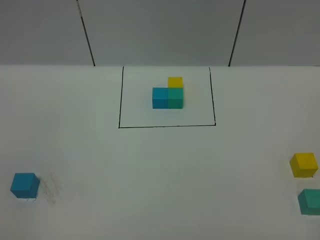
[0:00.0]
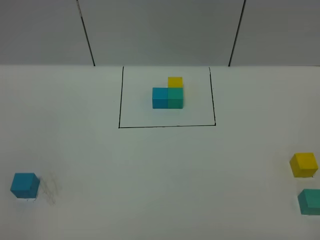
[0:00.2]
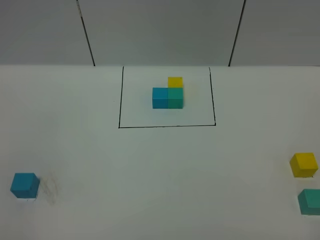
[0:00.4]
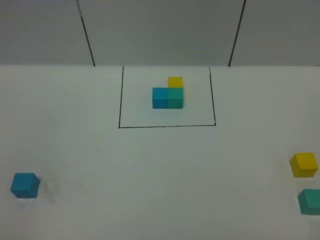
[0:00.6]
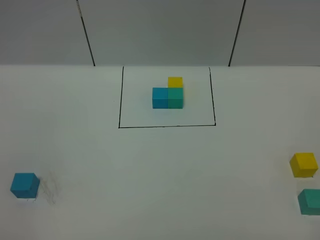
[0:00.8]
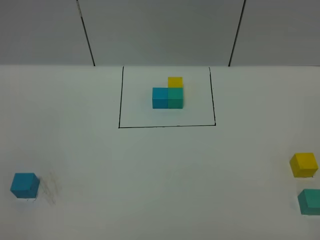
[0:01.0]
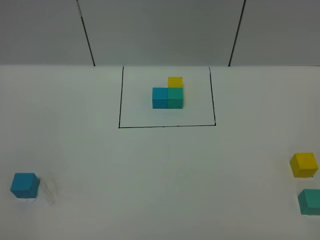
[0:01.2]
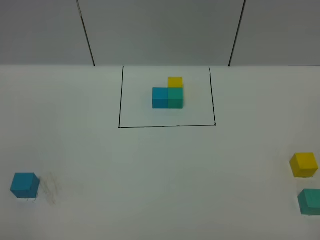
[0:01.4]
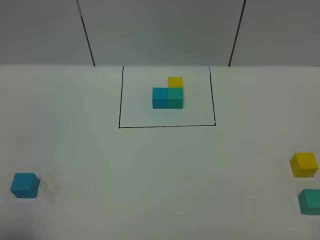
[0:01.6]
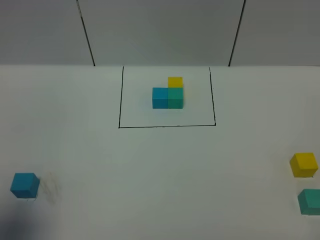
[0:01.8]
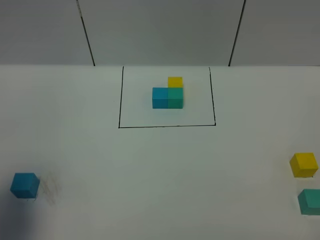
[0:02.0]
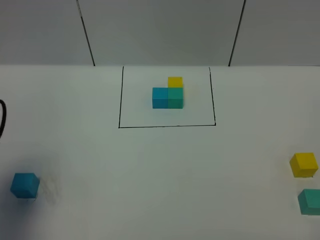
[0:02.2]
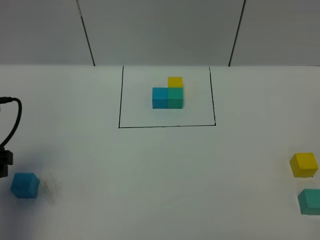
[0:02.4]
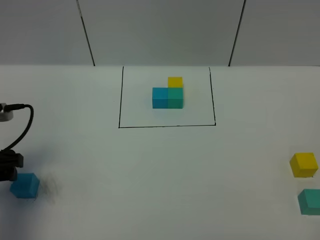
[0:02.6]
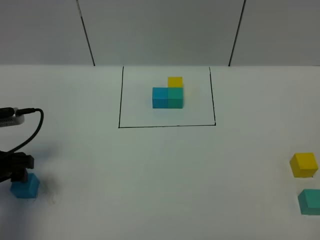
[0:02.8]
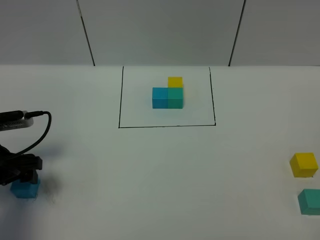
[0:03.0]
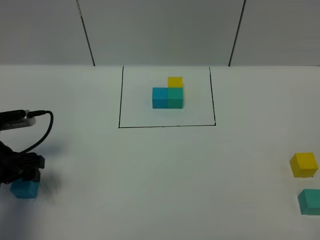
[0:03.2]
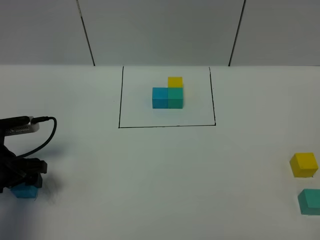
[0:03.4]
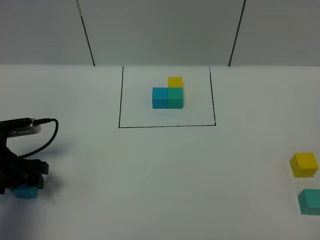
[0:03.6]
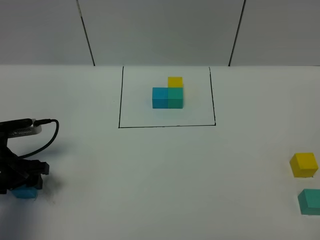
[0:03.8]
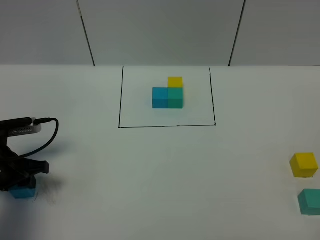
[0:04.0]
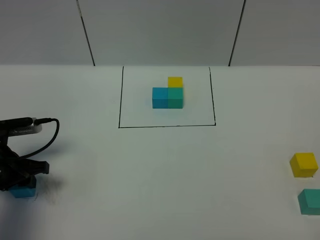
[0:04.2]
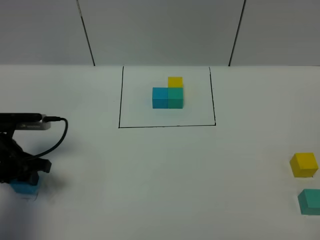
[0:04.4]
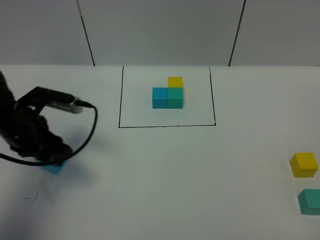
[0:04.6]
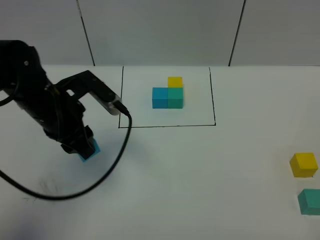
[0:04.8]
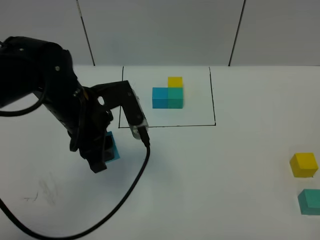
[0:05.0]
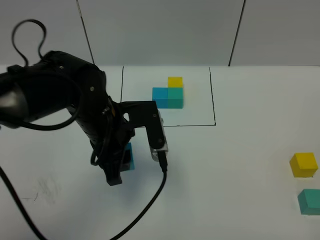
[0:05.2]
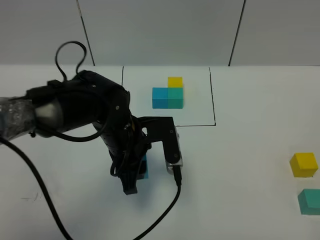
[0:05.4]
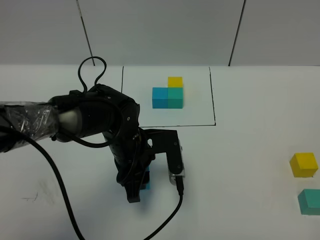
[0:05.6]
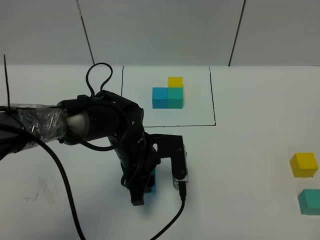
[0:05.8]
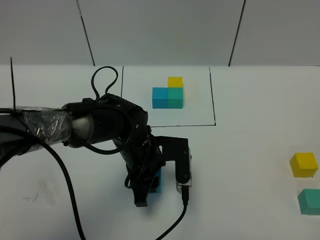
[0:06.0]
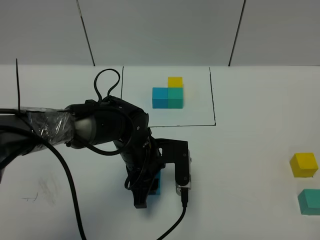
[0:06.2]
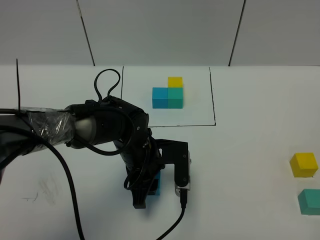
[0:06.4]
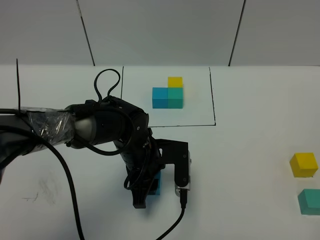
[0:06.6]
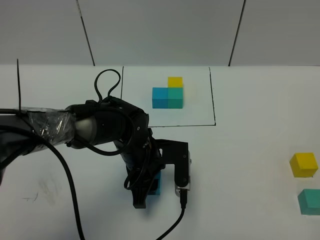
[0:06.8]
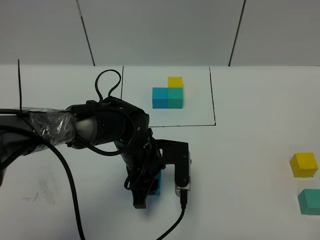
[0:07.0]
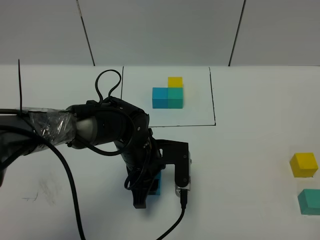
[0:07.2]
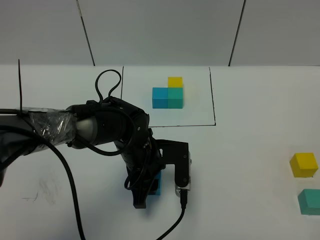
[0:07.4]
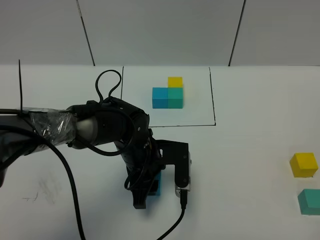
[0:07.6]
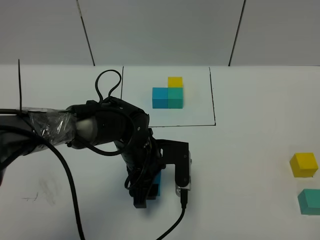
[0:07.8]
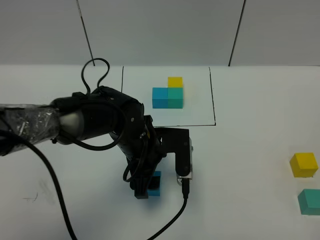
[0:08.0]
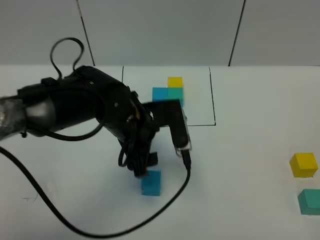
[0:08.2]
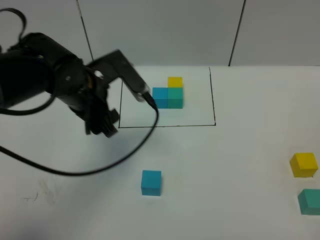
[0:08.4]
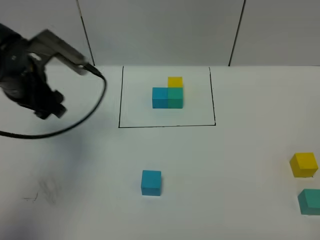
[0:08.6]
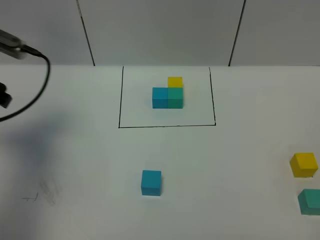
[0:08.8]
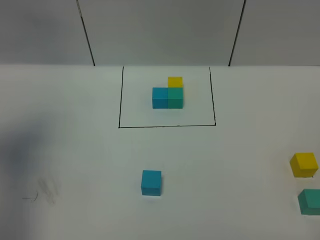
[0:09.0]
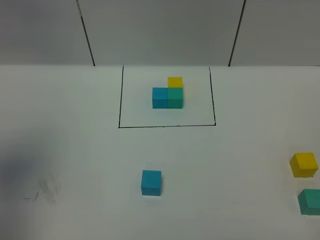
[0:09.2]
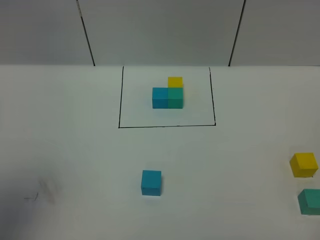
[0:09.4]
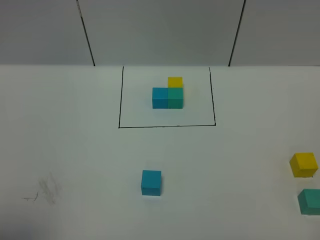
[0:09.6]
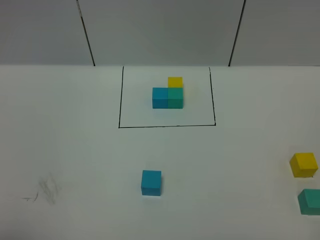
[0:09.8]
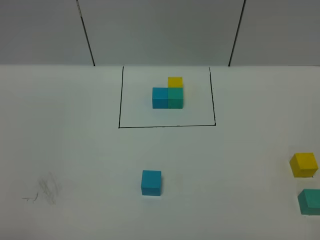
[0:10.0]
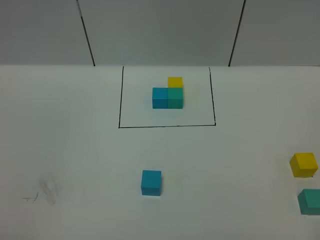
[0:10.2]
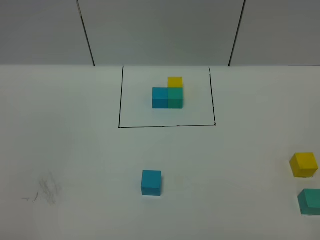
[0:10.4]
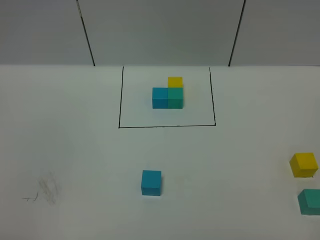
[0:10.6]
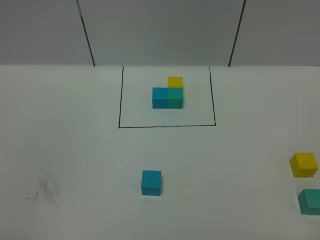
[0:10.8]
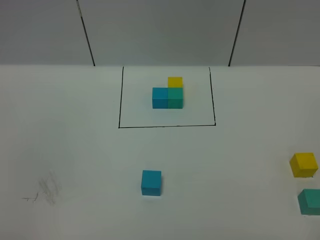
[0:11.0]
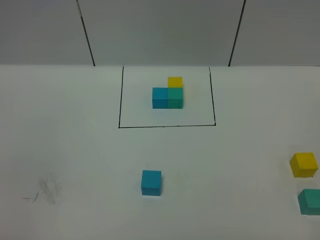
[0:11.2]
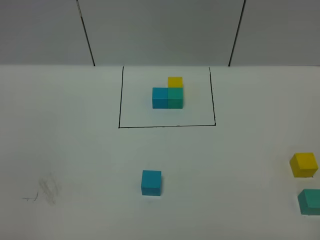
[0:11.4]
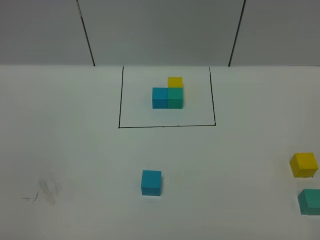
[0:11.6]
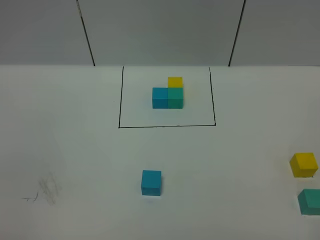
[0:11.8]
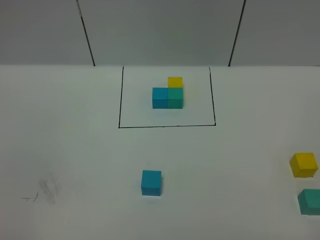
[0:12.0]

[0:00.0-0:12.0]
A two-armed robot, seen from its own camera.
Task of the whole recording: According to the building block template in front, assemble the scattered blocks together.
Step, 0:02.2 to 0:07.8: Put the blue cube in the center of the table.
0:01.6 to 0:03.0: The left gripper travels forward and downward by about 25 cm.
0:03.0 to 0:04.4: The left gripper closes.
0:04.4 to 0:06.0: The left gripper shifts about 25 cm to the right.
0:06.0 to 0:07.6: Both grippers stay about where they are.
0:07.6 to 0:09.0: The left gripper goes roughly 40 cm to the left and upward, and opens.
0:09.0 to 0:10.4: The left gripper shifts about 30 cm backward.

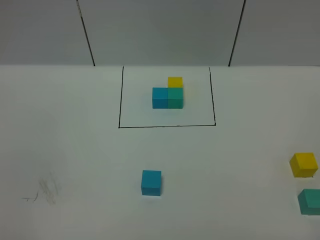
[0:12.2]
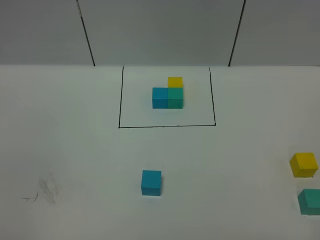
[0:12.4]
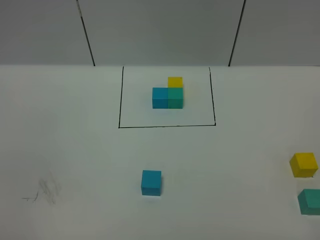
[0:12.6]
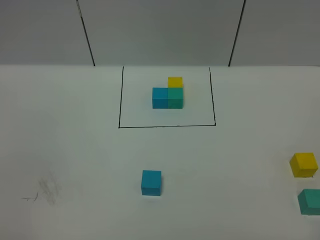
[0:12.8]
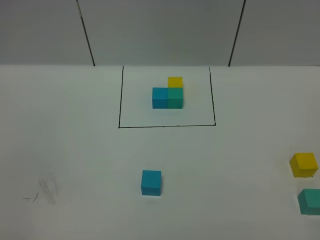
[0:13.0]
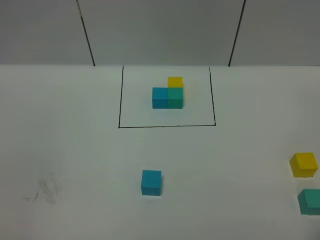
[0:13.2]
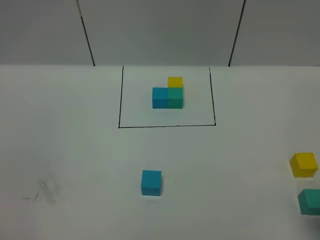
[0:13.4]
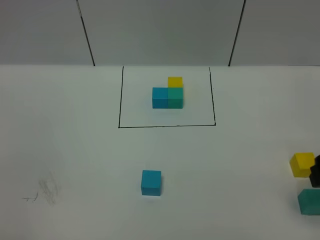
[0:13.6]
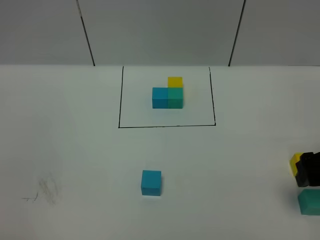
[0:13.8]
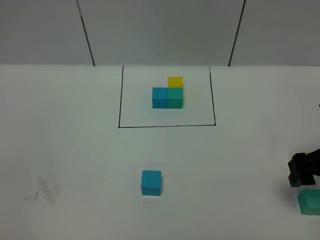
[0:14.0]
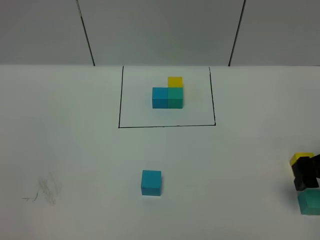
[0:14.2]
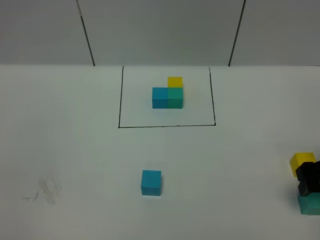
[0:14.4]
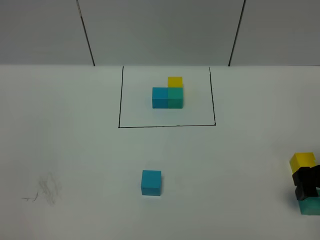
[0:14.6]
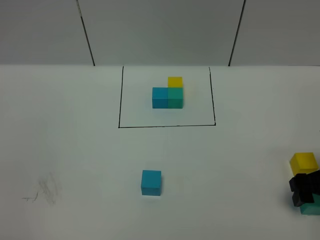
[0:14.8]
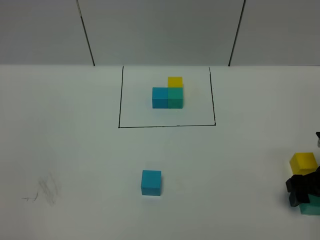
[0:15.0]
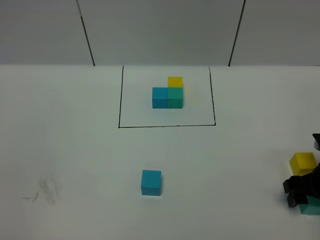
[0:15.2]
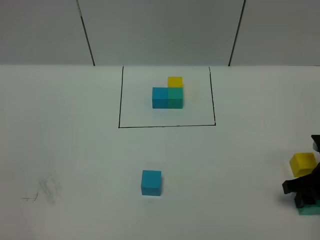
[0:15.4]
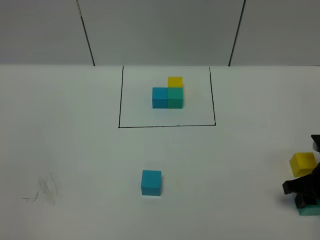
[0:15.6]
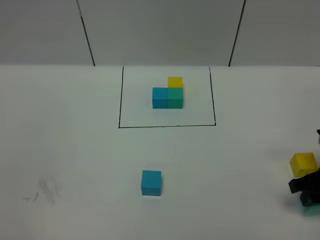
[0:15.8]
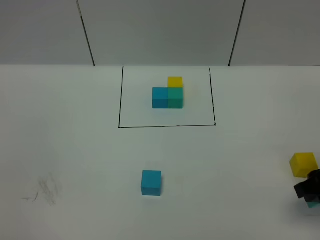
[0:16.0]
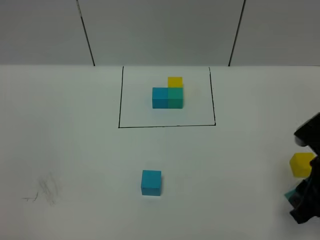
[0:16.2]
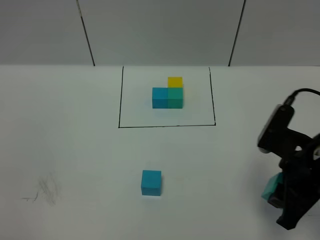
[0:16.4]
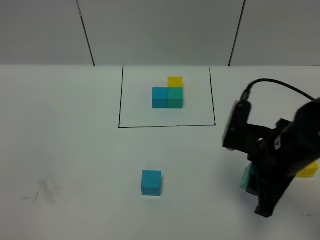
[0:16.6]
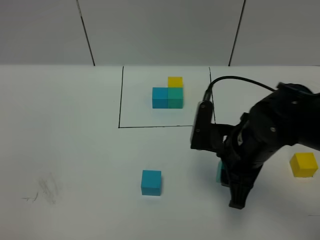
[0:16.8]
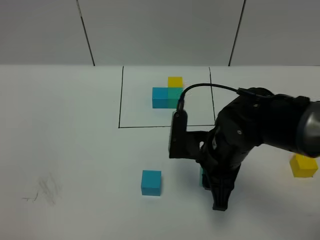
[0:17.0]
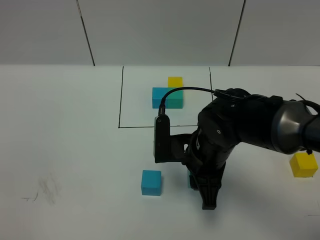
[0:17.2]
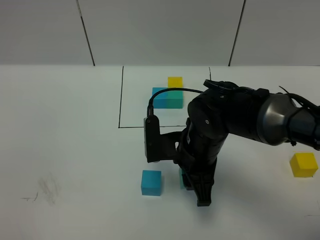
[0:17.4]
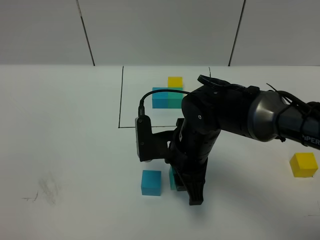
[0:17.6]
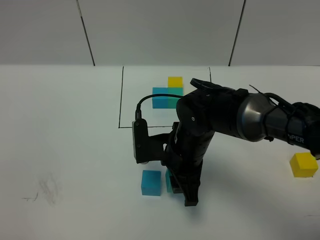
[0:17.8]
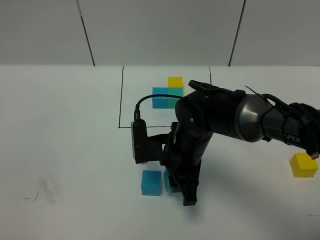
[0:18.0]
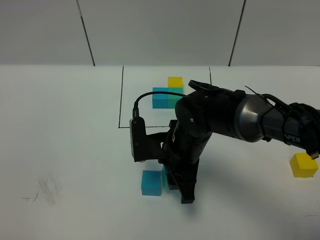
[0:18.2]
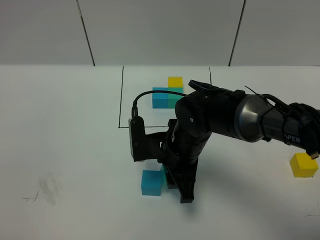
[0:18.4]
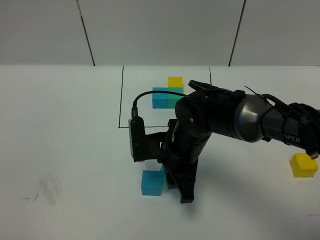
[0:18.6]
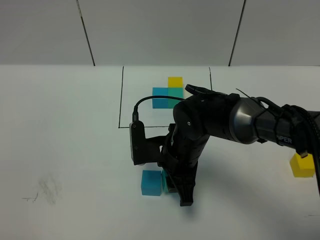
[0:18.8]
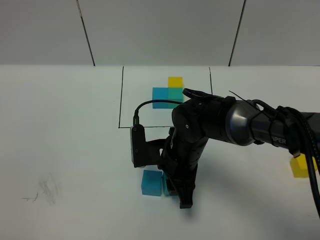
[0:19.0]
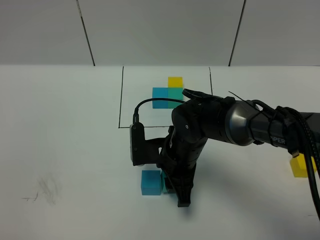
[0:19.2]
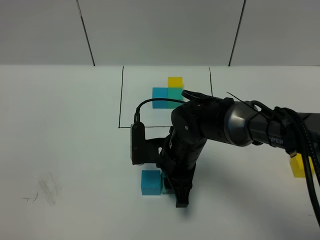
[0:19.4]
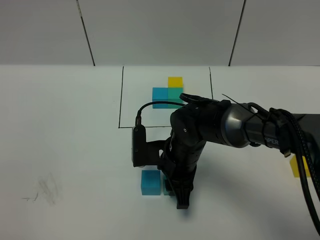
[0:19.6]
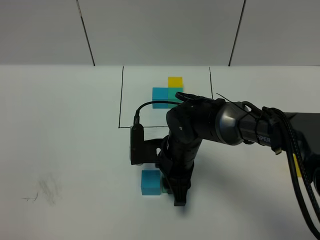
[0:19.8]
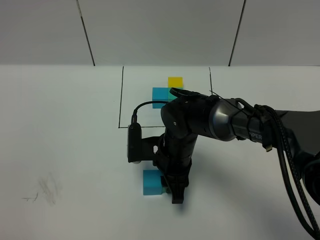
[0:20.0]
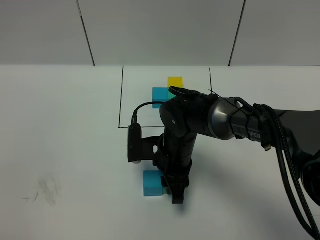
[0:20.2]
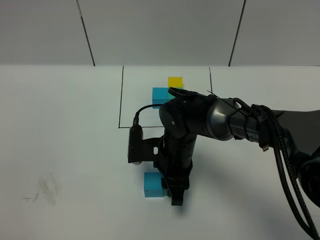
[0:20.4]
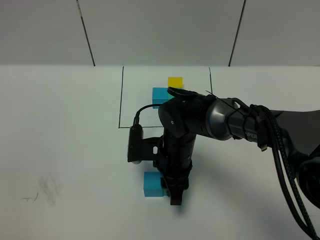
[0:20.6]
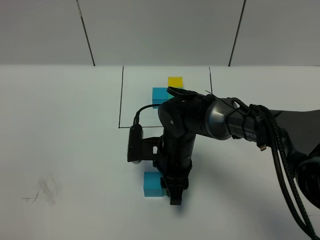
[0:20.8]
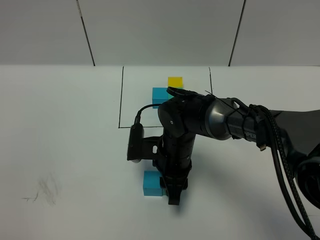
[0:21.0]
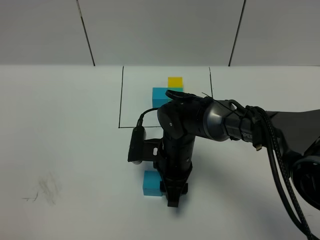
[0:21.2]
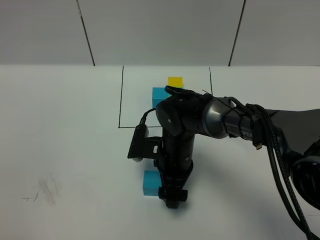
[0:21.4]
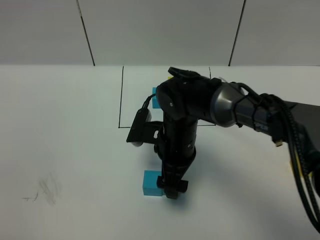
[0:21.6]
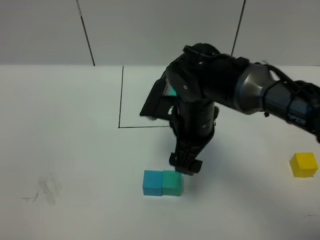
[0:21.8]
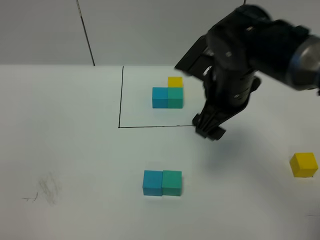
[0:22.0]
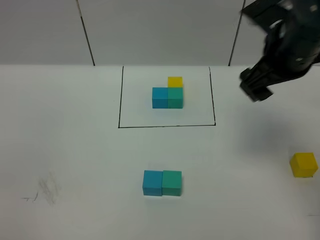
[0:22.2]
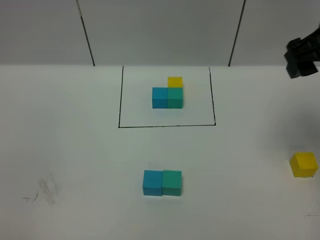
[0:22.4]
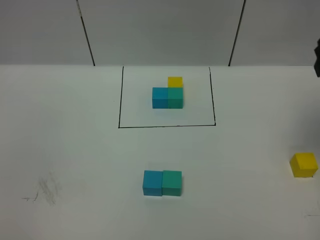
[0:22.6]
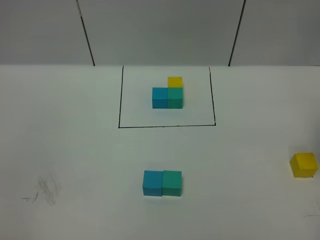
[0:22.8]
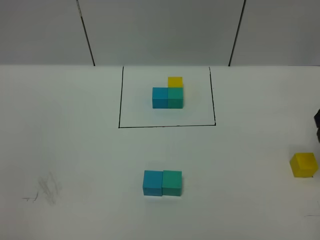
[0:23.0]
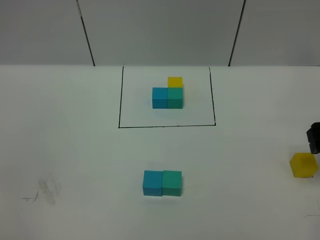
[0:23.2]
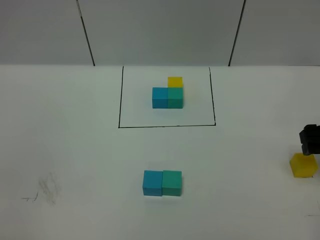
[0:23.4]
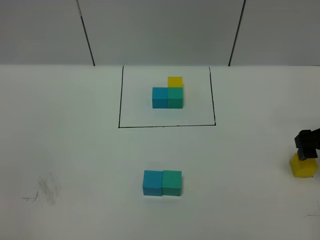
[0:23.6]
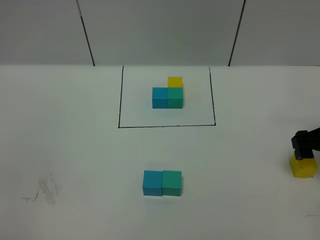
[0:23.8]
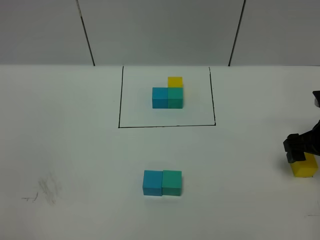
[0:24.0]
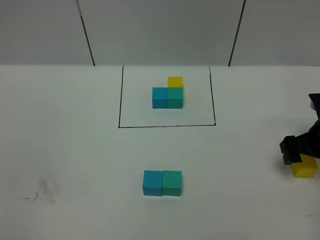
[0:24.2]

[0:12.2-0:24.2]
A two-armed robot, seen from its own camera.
Task of the whole recording: According to the building block template in front, assemble the scattered blocks together.
Step, 0:12.2 to 0:21.4: Put the green cube on the right of the blue cube.
0:12.2 to 0:13.8: The right gripper goes approximately 25 cm forward.
0:13.8 to 0:15.2: The right gripper is displaced downward by roughly 10 cm.
0:15.2 to 0:16.6: The right gripper travels to the left and upward by about 15 cm, and closes up.
0:16.6 to 0:18.2: The right gripper shifts some 15 cm to the left, downward and forward.
0:18.2 to 0:21.2: The grippers stay close to where they were, moving slightly.
0:21.2 to 0:22.6: The right gripper heads to the right and upward, covering some 40 cm, and opens up.
0:22.6 to 0:24.2: The right gripper is displaced downward by roughly 20 cm.
